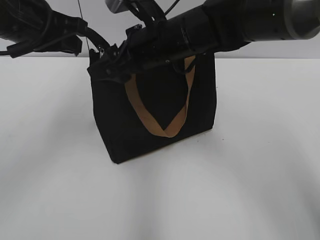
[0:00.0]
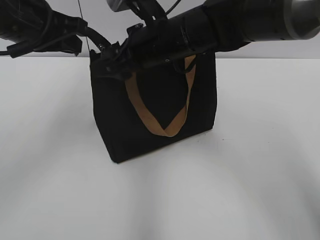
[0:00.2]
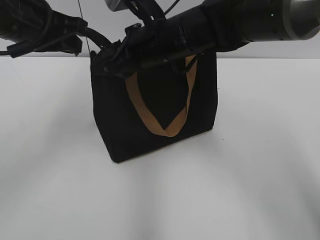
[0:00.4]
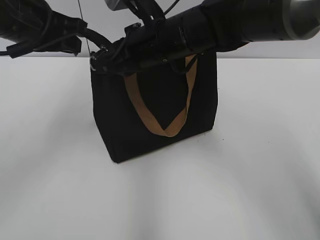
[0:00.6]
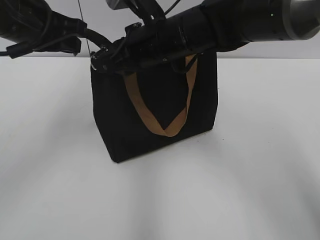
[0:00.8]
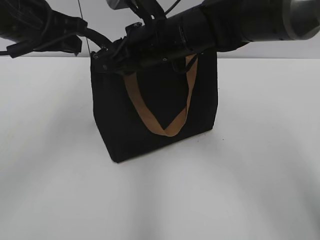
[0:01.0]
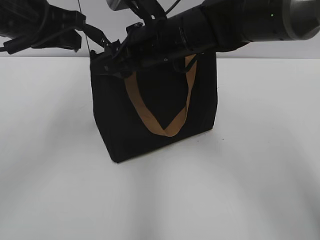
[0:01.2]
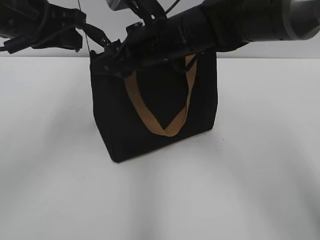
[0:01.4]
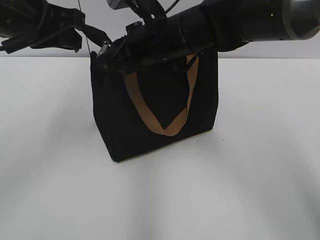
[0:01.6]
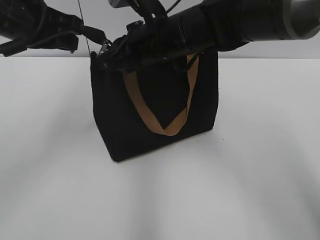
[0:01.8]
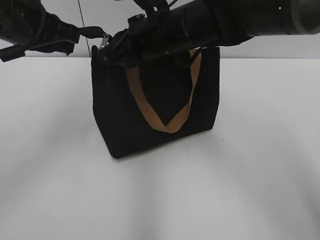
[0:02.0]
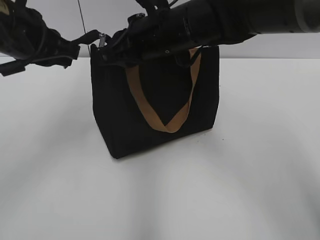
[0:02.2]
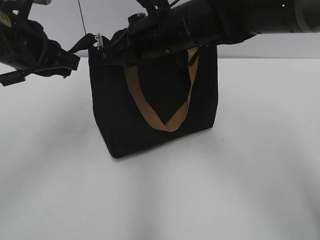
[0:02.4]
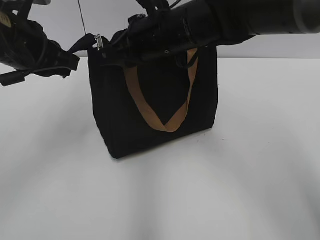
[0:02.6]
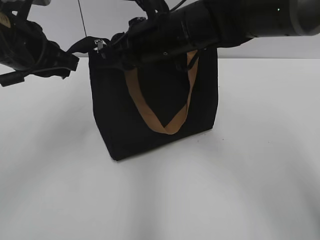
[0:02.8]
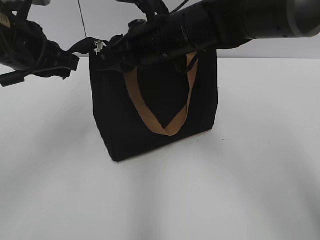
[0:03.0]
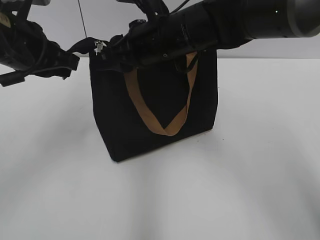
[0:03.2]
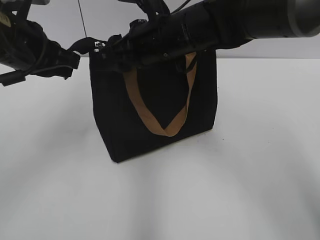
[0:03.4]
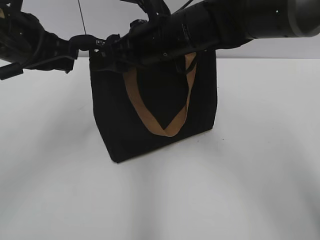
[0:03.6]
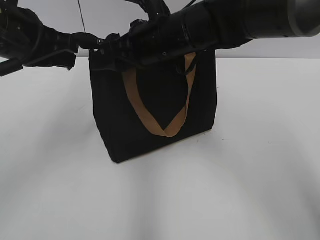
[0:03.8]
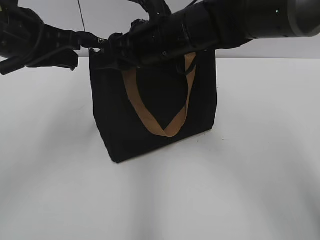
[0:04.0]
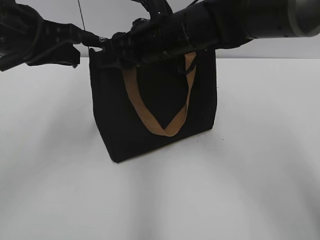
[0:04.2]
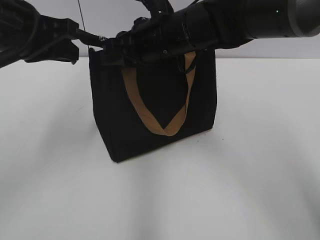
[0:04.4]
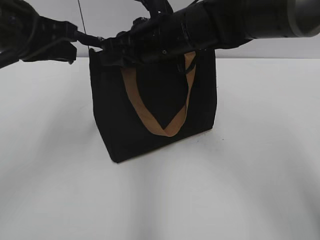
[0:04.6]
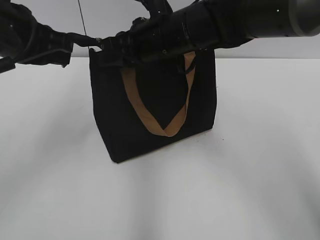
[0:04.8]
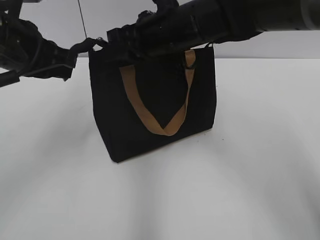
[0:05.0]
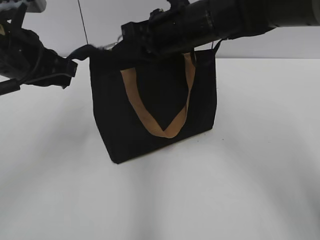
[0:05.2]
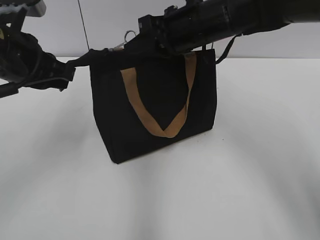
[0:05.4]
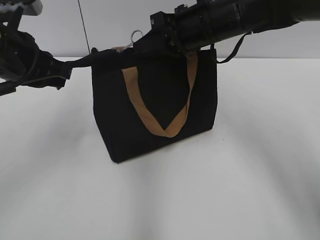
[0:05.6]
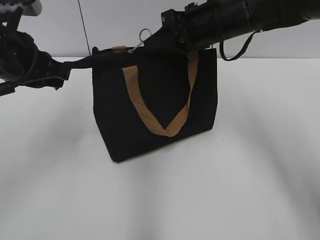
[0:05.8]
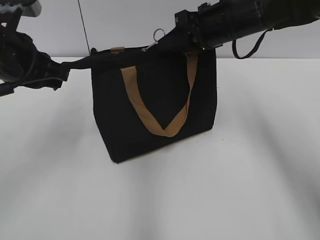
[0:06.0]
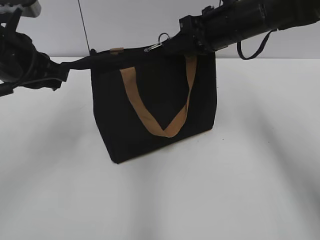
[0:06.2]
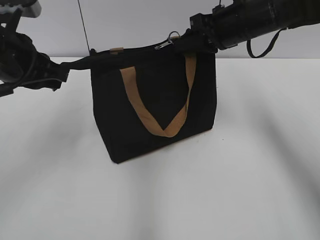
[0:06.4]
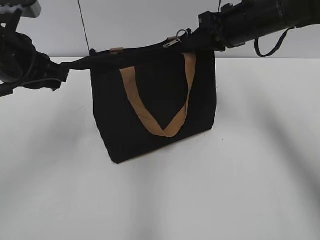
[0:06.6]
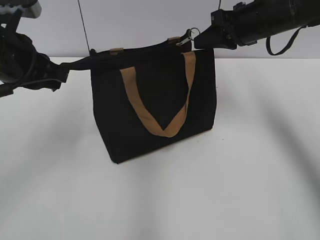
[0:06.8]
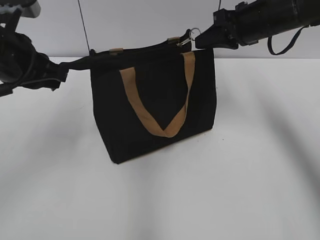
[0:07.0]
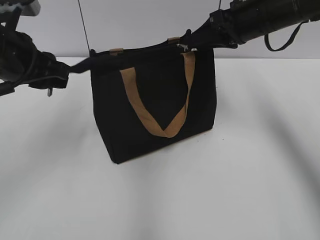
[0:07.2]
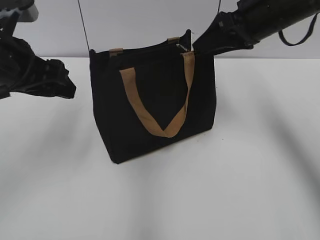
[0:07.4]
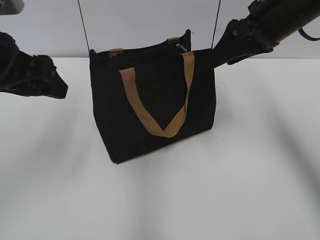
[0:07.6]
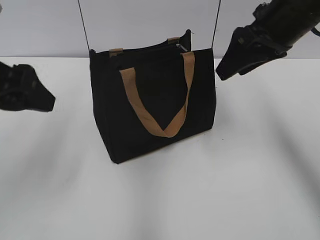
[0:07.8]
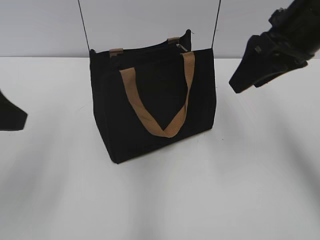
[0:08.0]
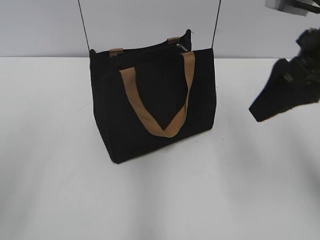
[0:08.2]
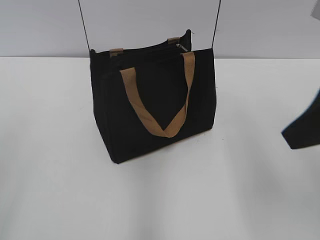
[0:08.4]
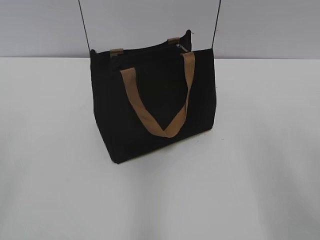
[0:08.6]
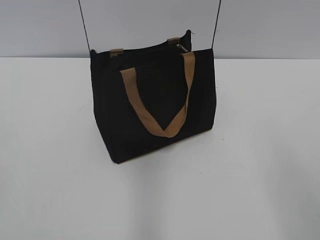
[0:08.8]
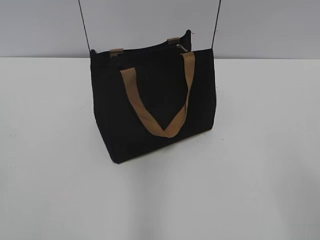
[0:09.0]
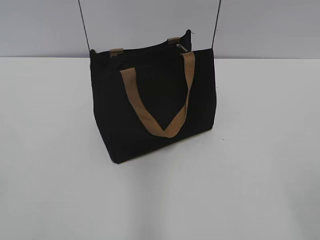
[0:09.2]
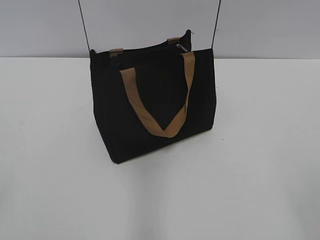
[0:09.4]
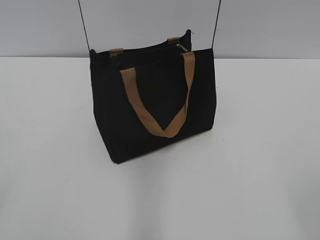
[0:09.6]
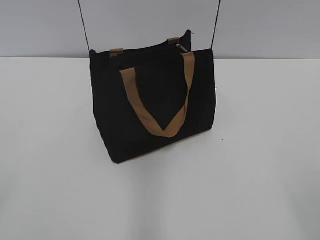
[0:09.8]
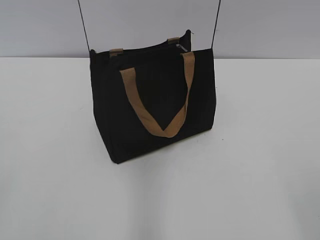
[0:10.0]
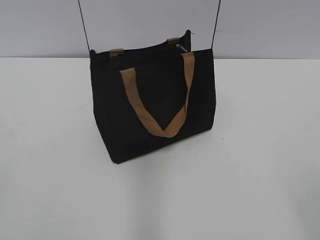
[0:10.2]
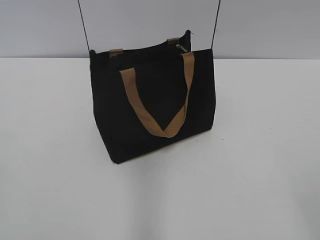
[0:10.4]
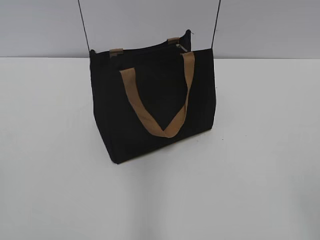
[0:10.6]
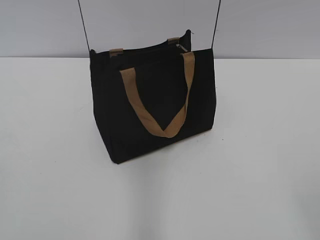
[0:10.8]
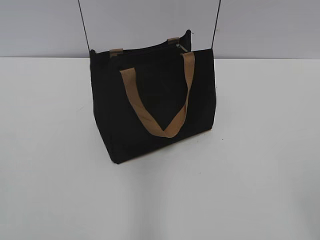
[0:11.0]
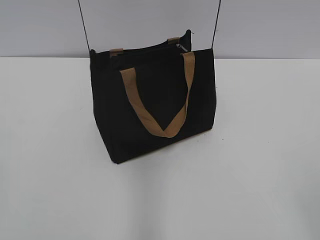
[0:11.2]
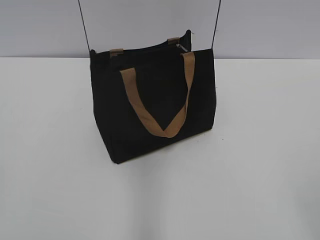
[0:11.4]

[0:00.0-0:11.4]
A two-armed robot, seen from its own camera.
Step, 0:00.0 to 0:07.2: Zip up the bag with your right hand.
0:00.0 to 0:01.4: The right gripper closes and opens again.
0:01.4 to 0:02.8: The right gripper closes its fingers.
0:02.8 to 0:04.2: The right gripper opens up.
0:04.2 to 0:05.6: The right gripper travels to the right by about 5 cm, and closes up.
0:05.6 to 0:07.2: The right gripper goes roughly 10 cm to the right.
0:07.2 to 0:08.6: The right gripper travels backward by some 25 cm, and opens its fingers, while the left gripper heads backward and to the left, covering about 25 cm, and opens up.
0:08.6 to 0:10.0: The right gripper moves backward, approximately 15 cm.

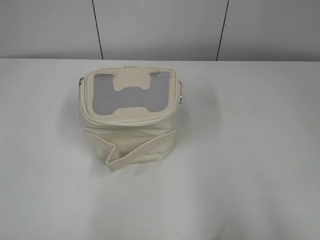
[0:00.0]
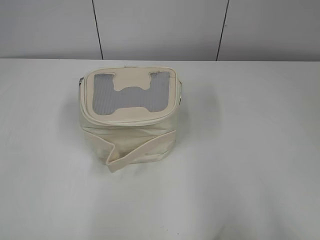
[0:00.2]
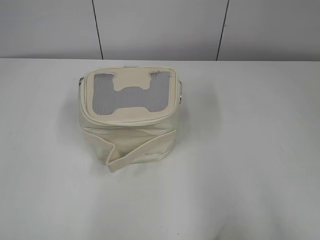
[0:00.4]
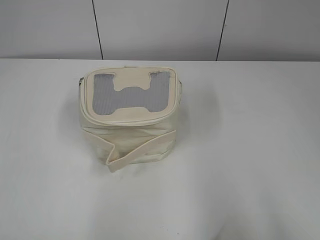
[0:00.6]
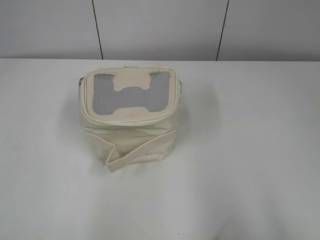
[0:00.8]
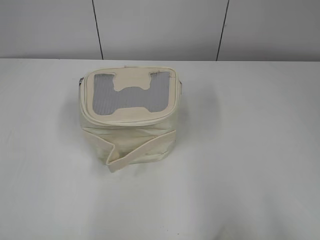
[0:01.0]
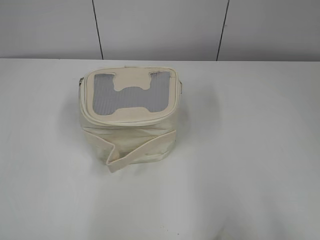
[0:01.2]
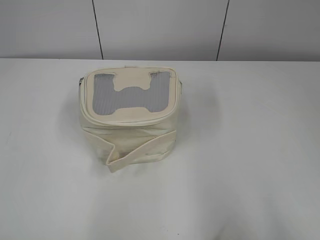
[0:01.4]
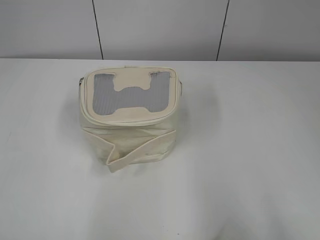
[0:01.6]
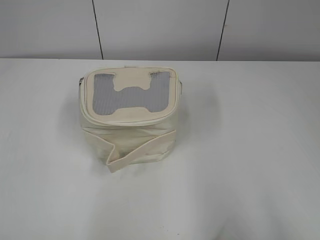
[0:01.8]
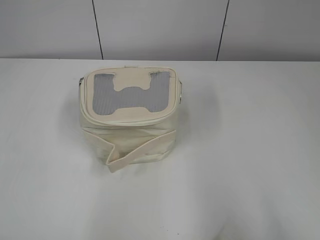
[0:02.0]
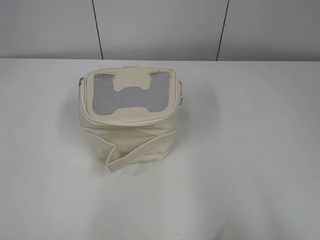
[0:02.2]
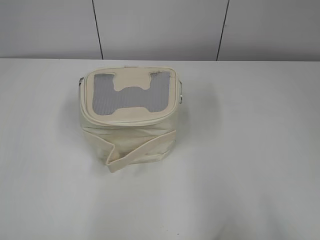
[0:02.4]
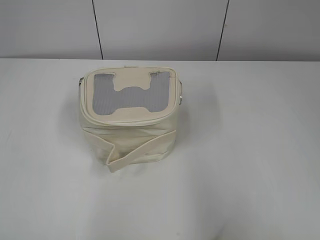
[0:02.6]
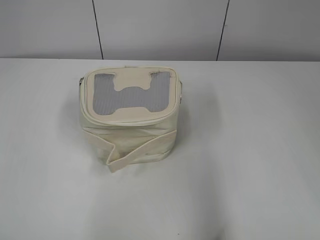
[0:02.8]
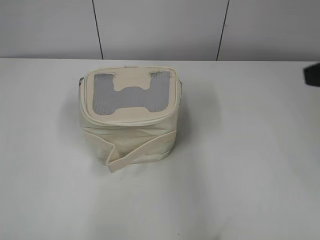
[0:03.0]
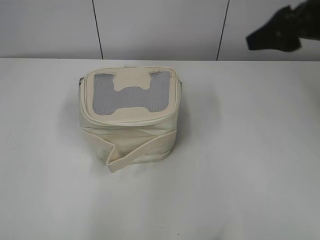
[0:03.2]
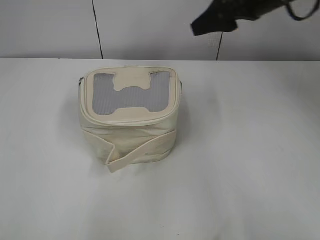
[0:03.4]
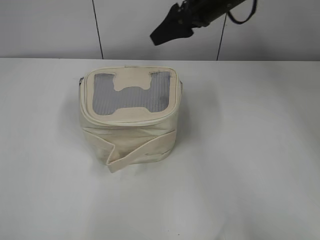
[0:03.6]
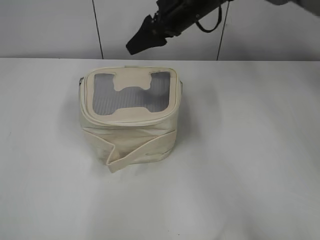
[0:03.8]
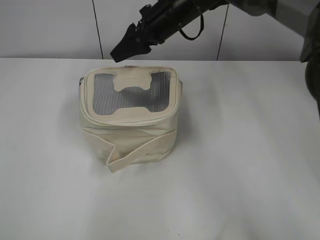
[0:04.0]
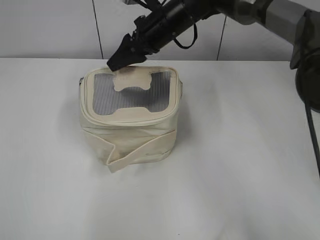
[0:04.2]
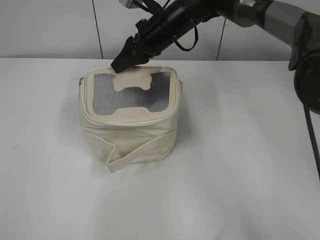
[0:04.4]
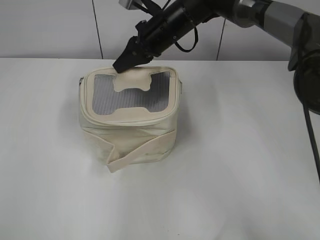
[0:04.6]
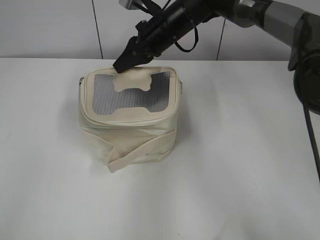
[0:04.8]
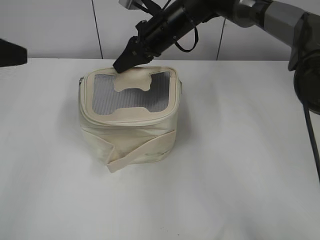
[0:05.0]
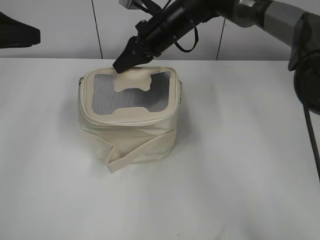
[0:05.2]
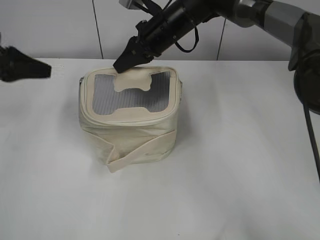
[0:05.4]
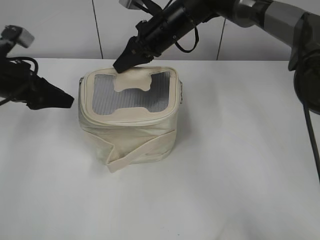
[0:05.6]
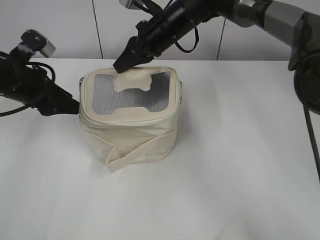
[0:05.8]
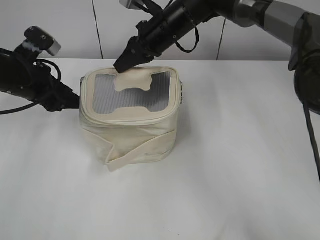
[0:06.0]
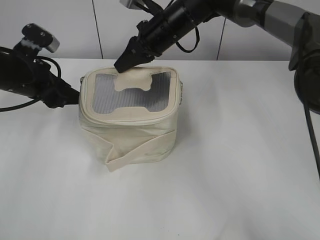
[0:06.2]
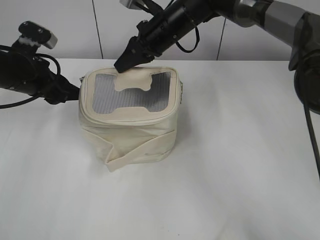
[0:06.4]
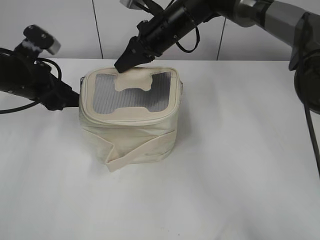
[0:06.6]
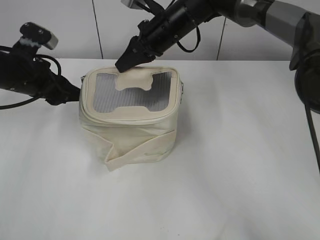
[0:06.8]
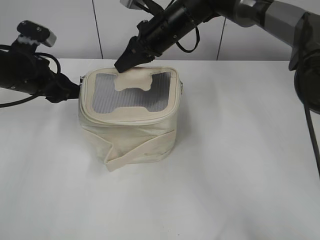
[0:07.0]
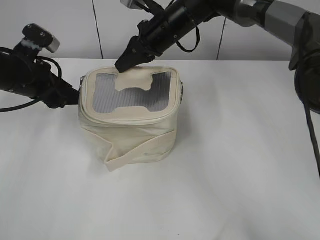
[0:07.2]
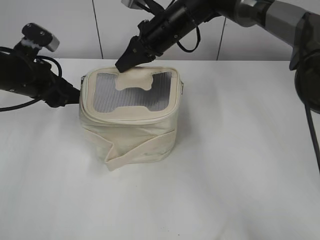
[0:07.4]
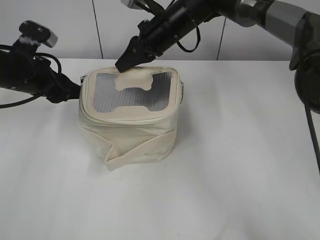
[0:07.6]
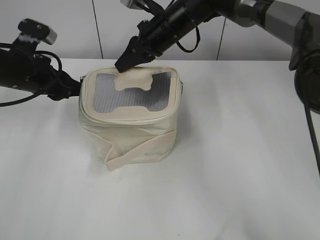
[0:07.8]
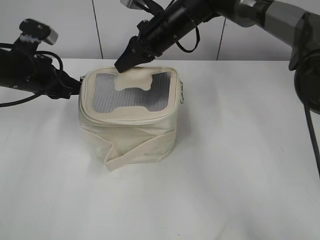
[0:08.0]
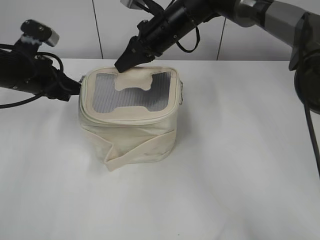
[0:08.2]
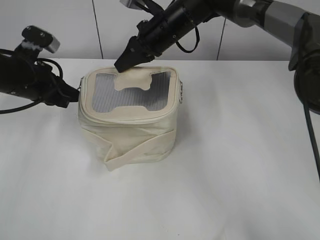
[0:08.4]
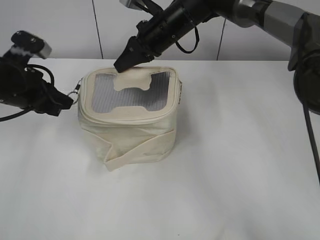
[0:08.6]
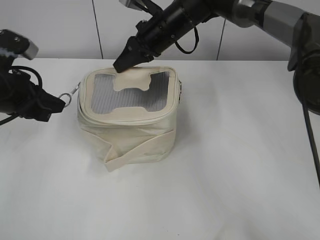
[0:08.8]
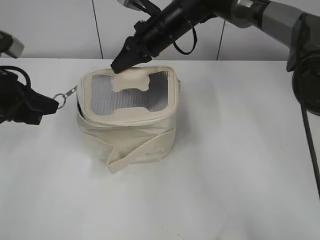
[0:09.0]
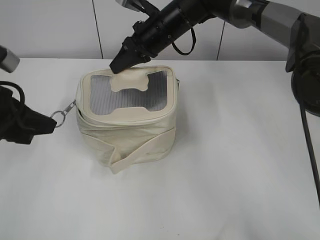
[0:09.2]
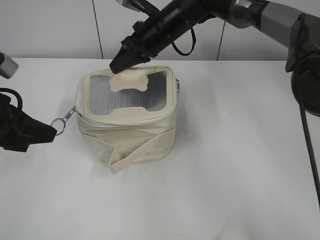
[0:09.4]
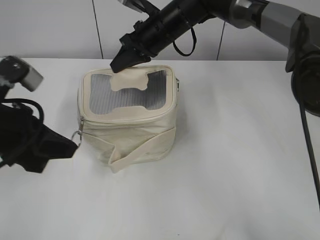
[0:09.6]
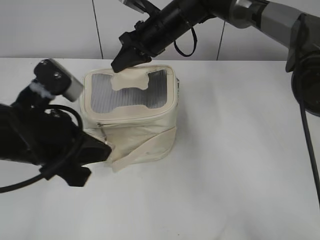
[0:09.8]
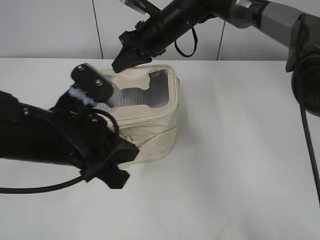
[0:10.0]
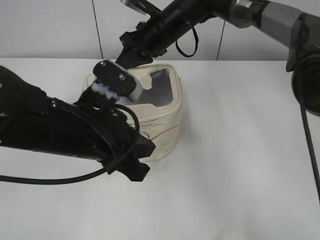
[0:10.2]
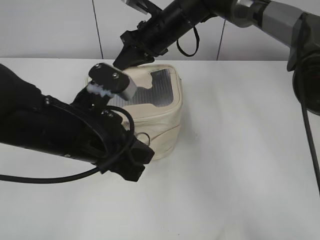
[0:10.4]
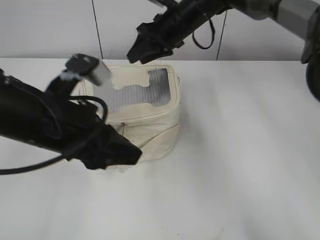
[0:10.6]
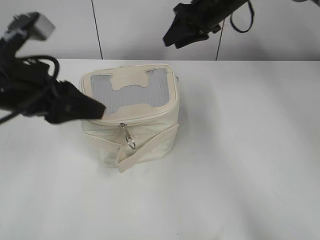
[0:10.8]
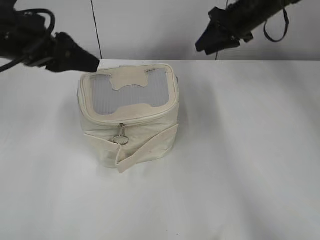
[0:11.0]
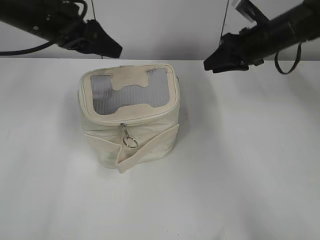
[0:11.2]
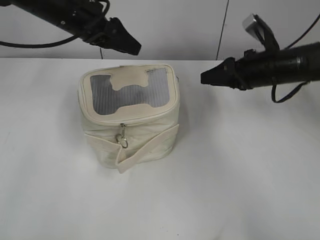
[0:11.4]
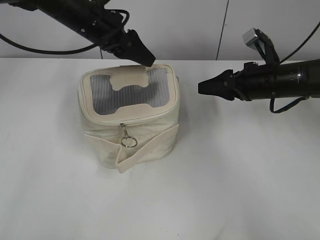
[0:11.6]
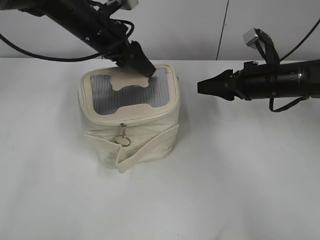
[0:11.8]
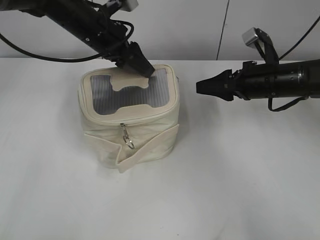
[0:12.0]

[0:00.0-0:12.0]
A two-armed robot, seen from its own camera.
Step, 0:00.0 to 0:10.4: Zip up the bag with your left hand.
0:01.6 to 0:03.0: The right gripper moves forward, approximately 20 cm.
0:03.0 to 0:04.4: The right gripper goes some 40 cm forward, to the left and downward.
0:04.4 to 0:06.0: The left gripper moves forward, approximately 35 cm, and opens. The right gripper closes.
0:06.0 to 0:07.6: The grippers make only small movements.
0:07.6 to 0:09.0: The left gripper shifts some 10 cm backward, and closes its fingers.
0:09.0 to 0:10.4: The left gripper moves to the right and backward, some 15 cm.
0:10.4 to 0:12.0: The left gripper shifts roughly 25 cm forward, and opens up. Meanwhile the right gripper heads to the right and backward, covering about 20 cm, and opens its fingers.
